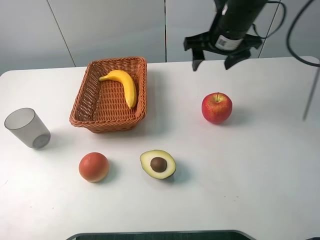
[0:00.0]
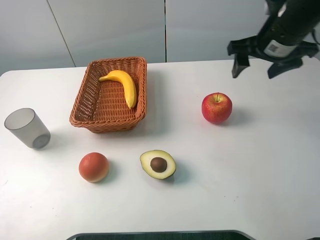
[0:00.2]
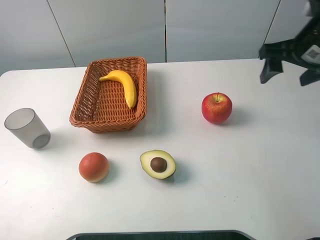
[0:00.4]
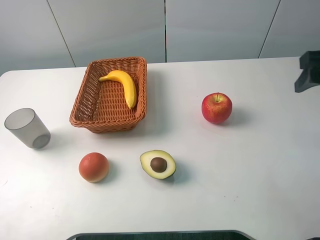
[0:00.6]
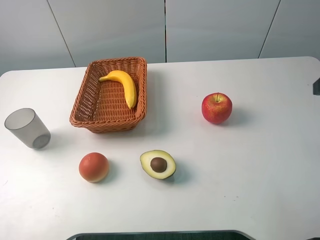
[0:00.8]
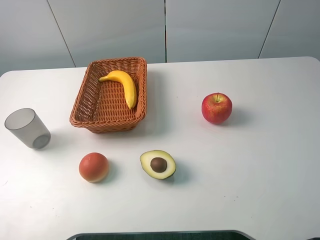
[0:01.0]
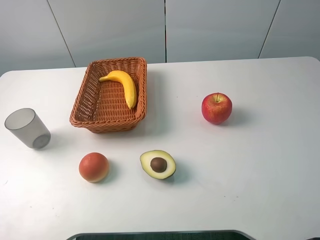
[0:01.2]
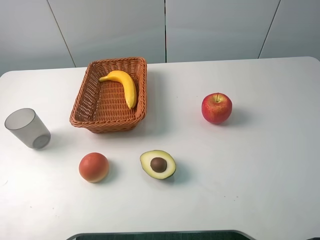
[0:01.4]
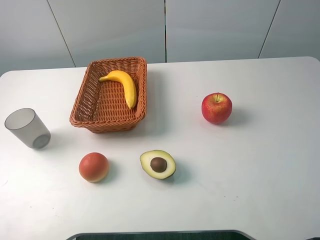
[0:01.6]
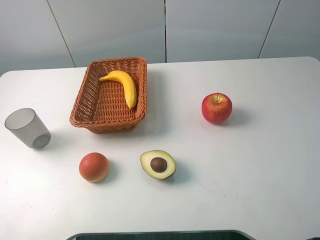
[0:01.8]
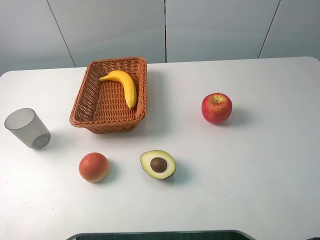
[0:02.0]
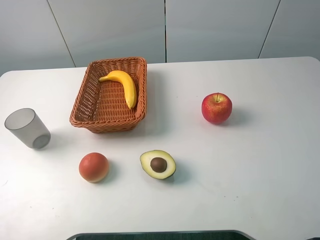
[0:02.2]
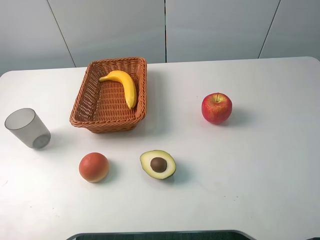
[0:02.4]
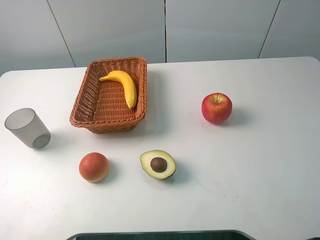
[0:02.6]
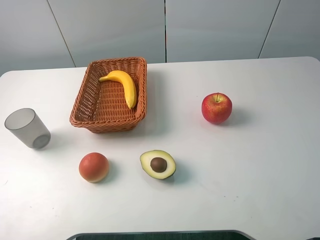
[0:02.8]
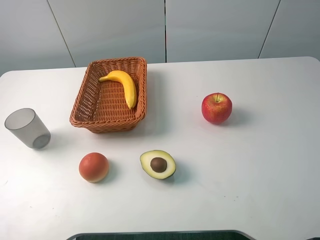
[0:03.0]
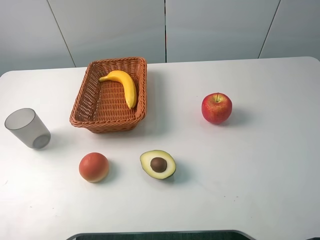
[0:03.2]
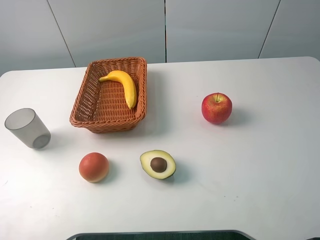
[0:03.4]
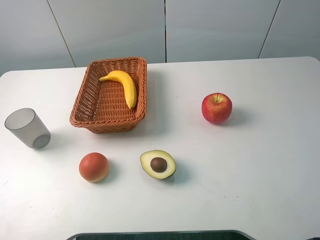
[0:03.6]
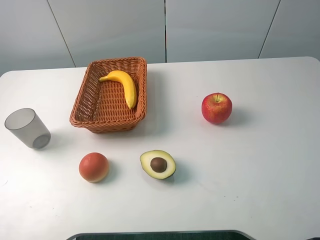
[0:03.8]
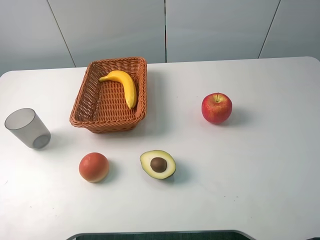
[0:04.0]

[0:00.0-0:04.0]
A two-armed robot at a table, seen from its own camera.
0:00.0 to 0:01.4: The right gripper goes some 35 cm backward.
0:02.6 to 0:04.0: Neither gripper changes place.

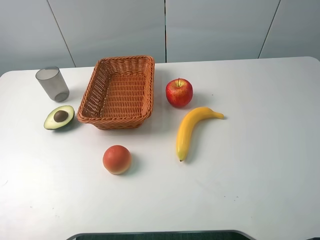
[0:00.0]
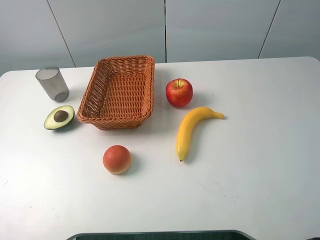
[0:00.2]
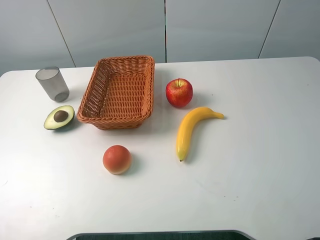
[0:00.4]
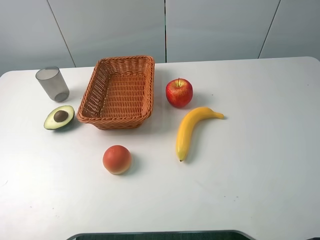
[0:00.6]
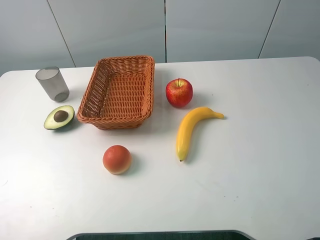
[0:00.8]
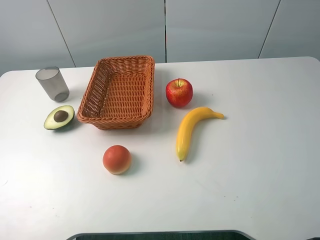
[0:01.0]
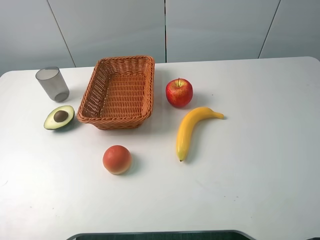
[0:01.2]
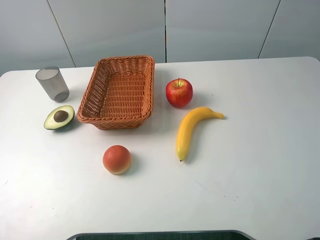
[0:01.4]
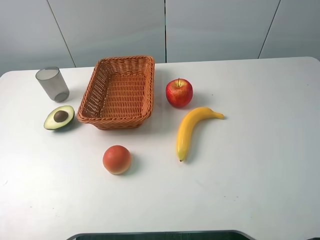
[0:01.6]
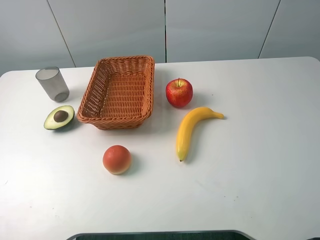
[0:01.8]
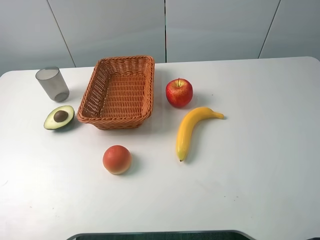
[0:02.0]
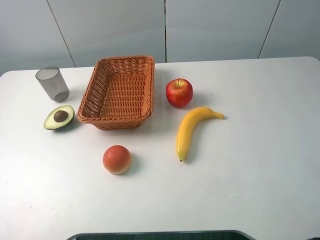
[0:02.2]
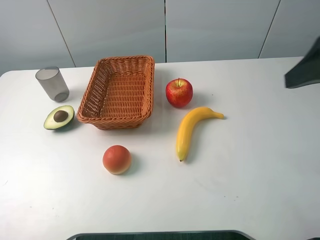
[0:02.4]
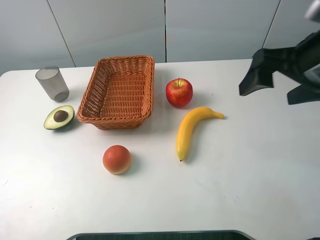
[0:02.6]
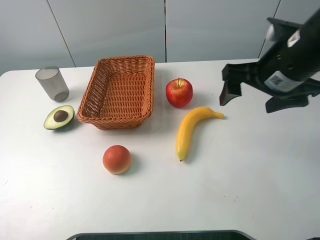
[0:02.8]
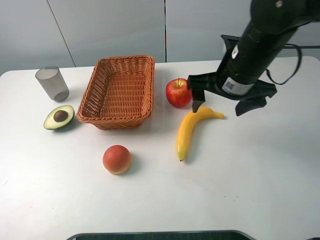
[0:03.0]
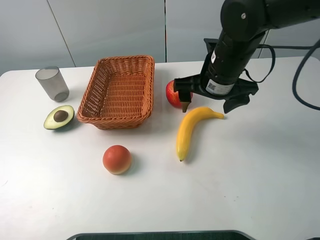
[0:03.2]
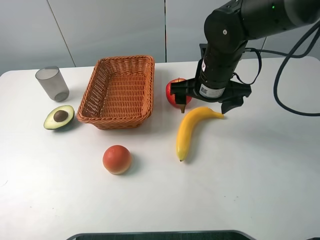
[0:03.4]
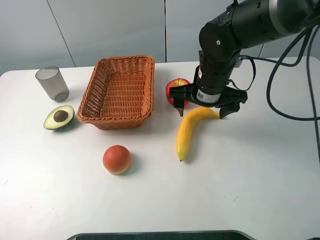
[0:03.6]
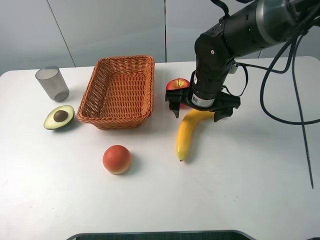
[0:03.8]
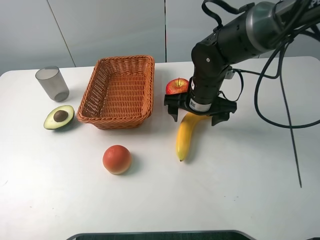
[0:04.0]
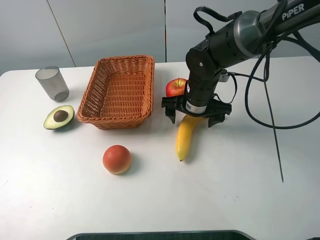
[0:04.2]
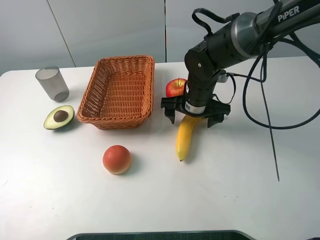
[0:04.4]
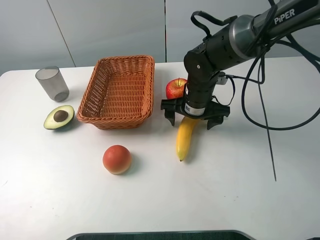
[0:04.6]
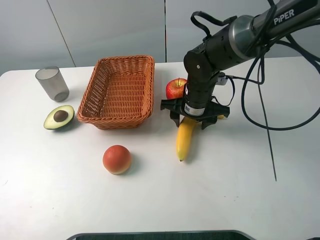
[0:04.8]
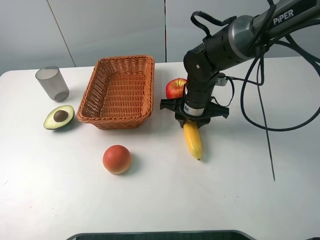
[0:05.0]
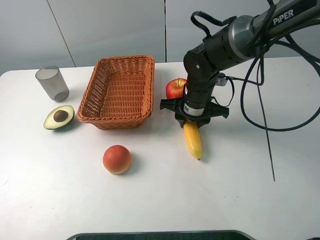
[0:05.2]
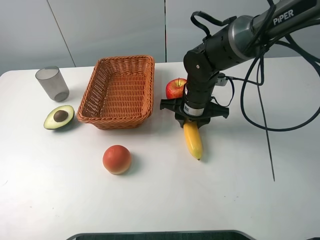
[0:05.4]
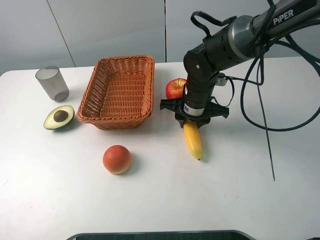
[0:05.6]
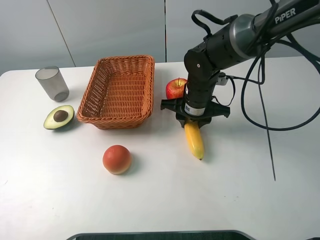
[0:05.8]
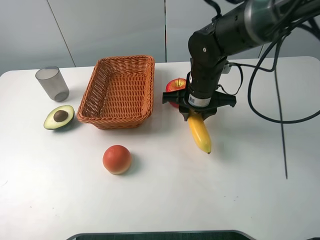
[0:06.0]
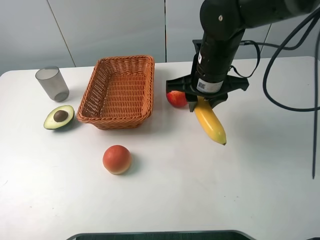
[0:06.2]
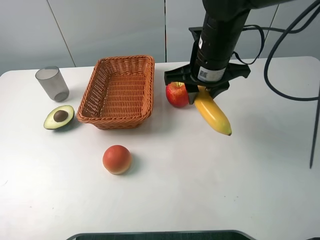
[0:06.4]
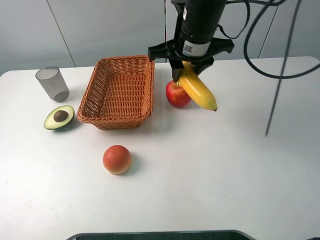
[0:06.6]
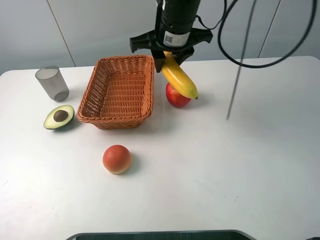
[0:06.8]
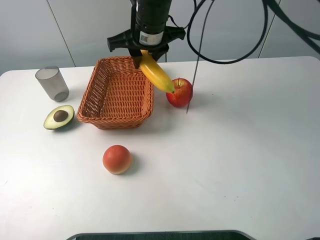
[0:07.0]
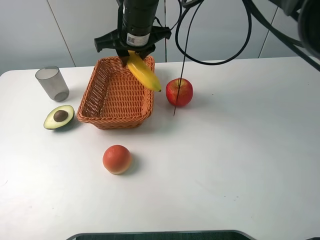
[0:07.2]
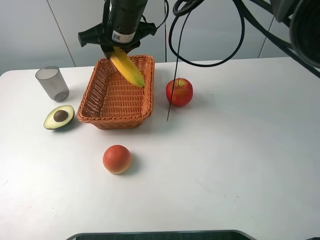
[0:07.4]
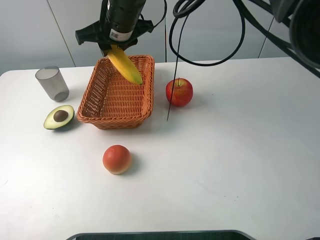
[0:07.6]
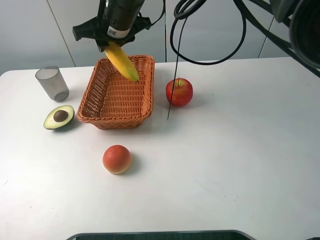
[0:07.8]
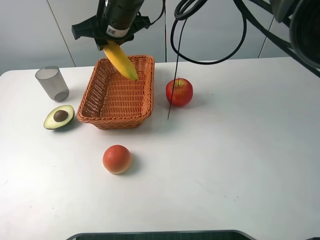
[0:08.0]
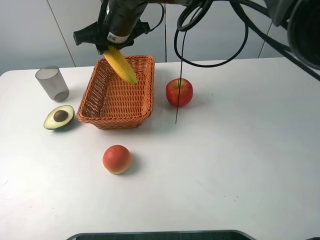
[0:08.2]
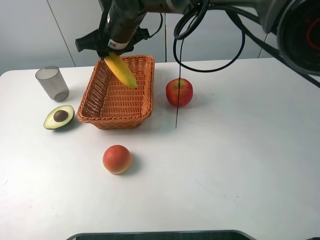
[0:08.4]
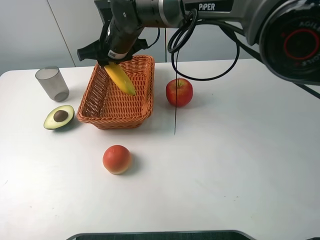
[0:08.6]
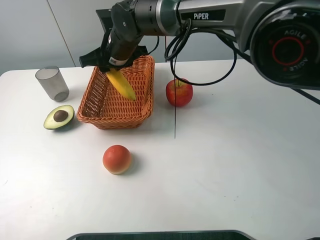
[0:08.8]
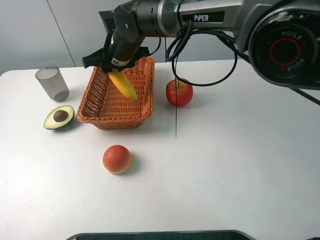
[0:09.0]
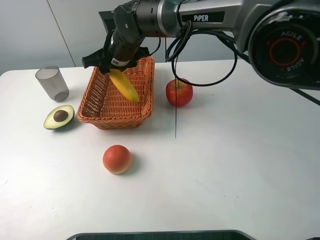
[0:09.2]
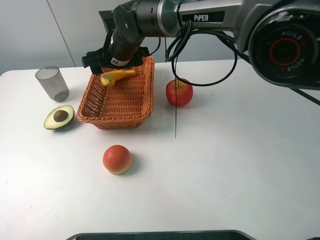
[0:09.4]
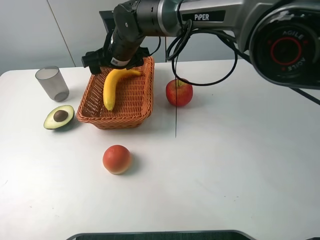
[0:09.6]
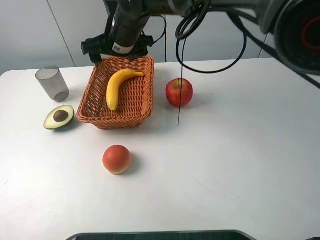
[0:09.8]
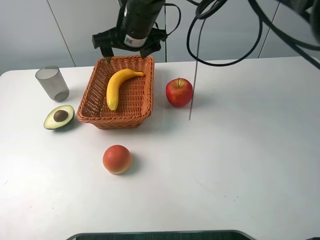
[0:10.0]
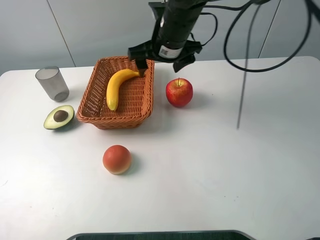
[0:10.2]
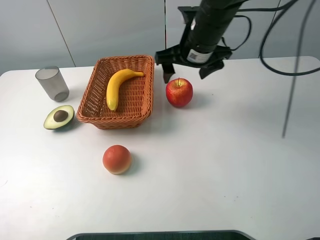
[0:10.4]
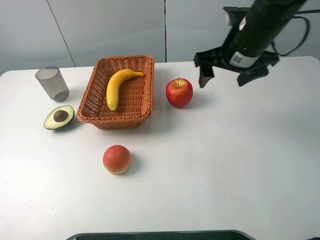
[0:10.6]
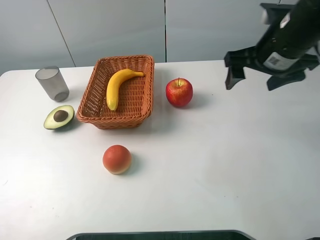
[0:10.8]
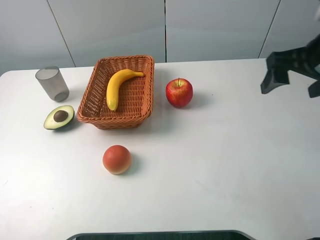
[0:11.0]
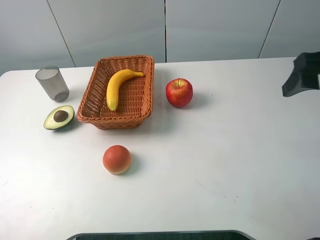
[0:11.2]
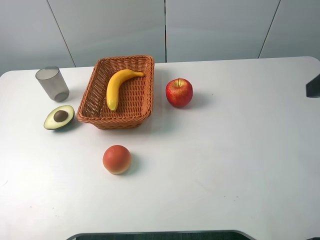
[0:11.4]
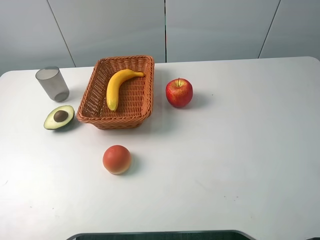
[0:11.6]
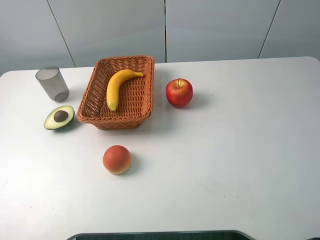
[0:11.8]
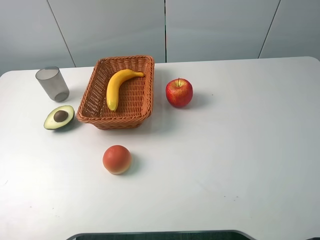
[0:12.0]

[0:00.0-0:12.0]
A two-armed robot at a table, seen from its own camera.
0:00.0 to 0:01.6: Neither gripper changes place.
0:01.6 to 0:03.0: The right gripper is displaced forward and to the left by approximately 30 cm.
0:03.0 to 0:04.4: The right gripper shifts about 10 cm downward.
0:04.4 to 0:06.0: The right gripper closes up.
0:06.0 to 0:07.6: The right gripper travels to the left, upward and forward by roughly 20 cm.
0:07.6 to 0:09.0: The right gripper heads downward, covering roughly 5 cm.
0:09.0 to 0:10.4: The right gripper heads to the right, covering approximately 15 cm, and opens.
0:10.4 to 0:12.0: The right gripper goes roughly 35 cm backward and to the right.

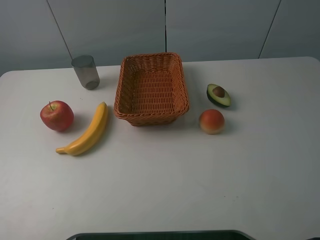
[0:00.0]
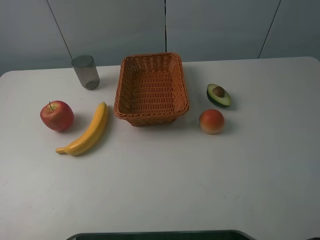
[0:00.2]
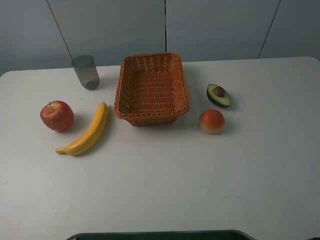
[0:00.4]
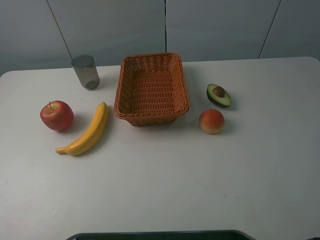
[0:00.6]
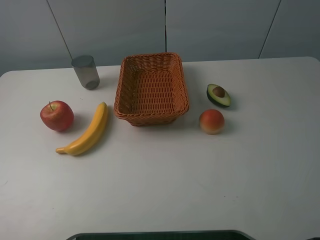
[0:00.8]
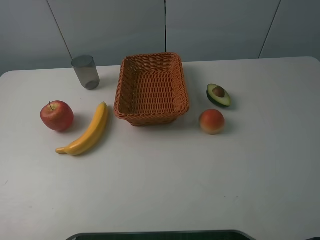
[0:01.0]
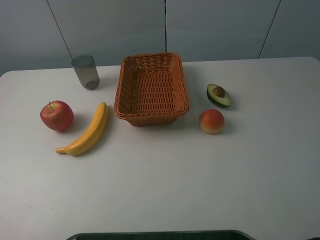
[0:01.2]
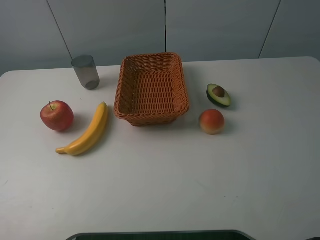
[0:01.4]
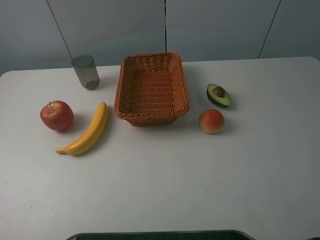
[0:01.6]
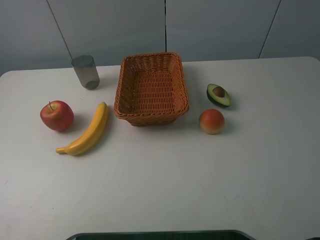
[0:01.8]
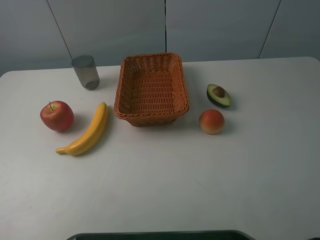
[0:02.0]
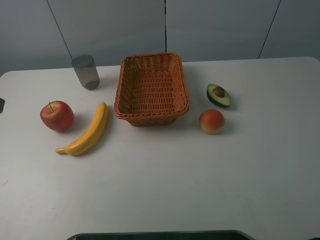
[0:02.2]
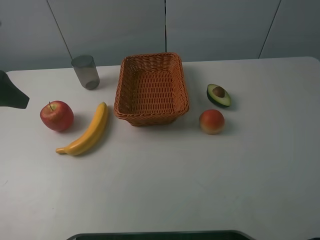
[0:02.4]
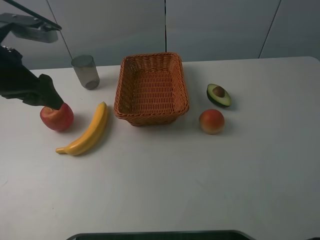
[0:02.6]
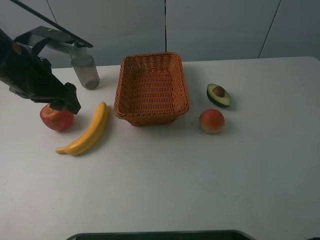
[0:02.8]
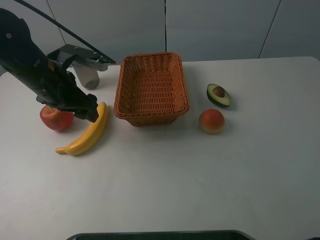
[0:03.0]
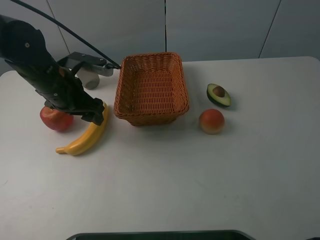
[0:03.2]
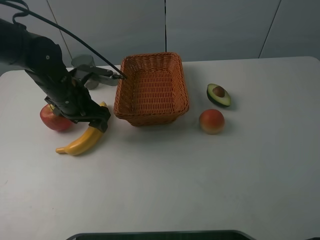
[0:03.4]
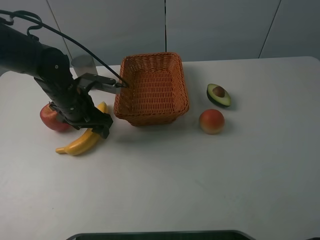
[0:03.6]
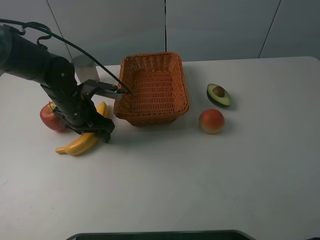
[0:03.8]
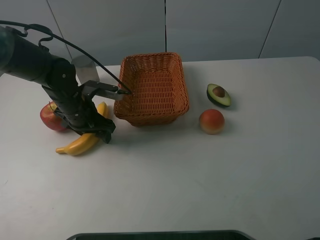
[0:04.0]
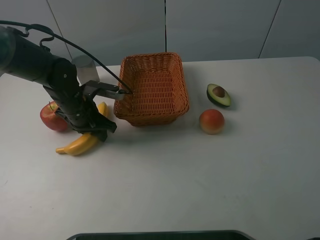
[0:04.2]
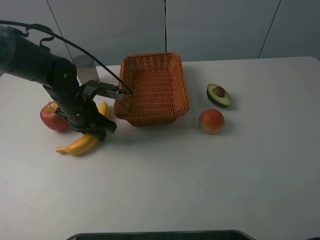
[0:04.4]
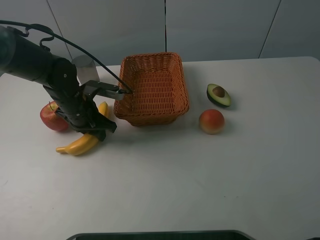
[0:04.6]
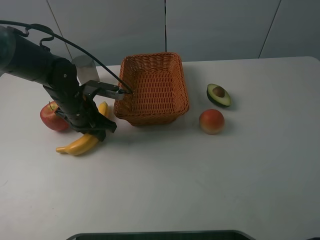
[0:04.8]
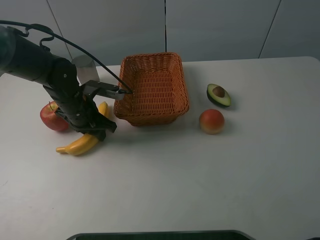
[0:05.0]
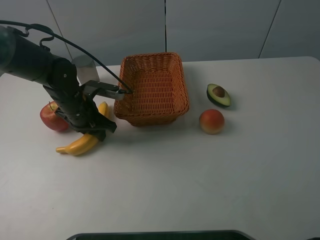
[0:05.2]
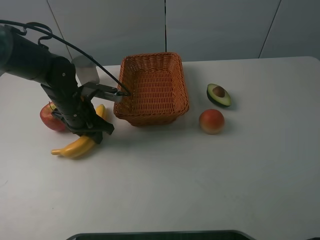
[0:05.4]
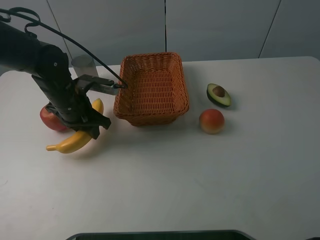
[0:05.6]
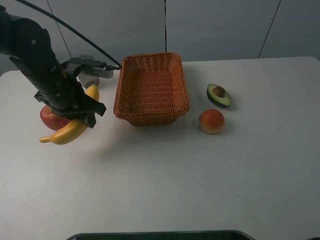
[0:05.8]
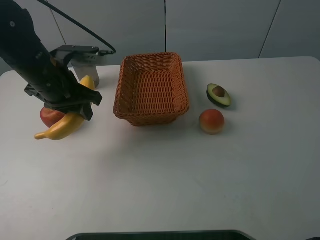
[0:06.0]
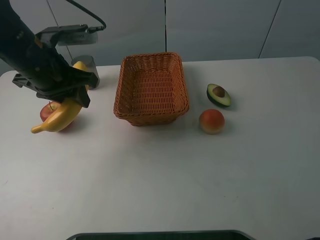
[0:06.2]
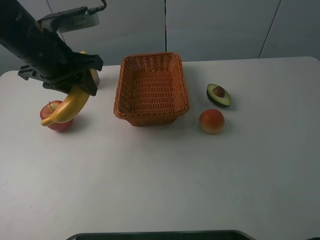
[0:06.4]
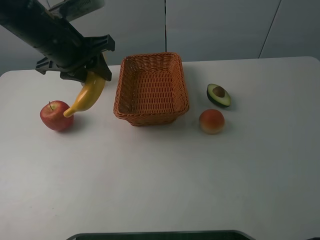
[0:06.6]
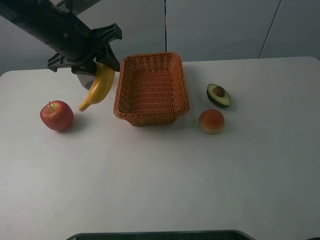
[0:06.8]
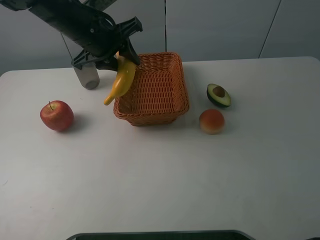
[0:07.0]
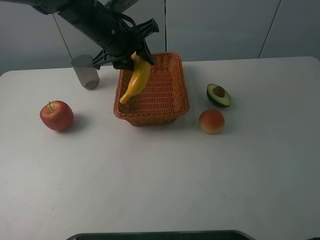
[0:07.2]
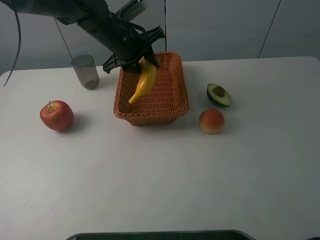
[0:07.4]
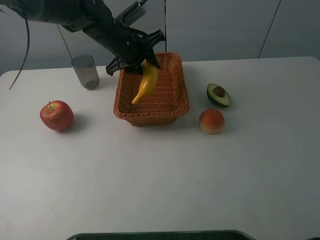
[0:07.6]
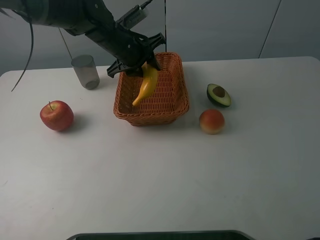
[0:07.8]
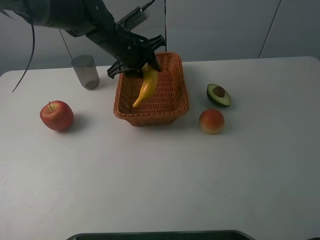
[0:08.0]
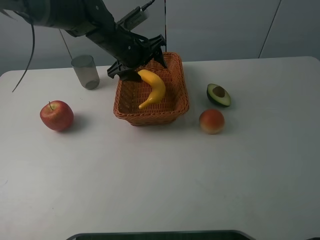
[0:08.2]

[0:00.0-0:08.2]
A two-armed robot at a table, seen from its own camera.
0:01.6 to 0:03.2: The left gripper travels forward and to the right by approximately 30 cm.
0:03.2 to 0:05.0: The left gripper heads downward, covering about 10 cm, and closes.
0:05.0 to 0:06.6: The left gripper shifts about 15 cm upward.
0:06.6 to 0:08.2: The left gripper moves forward, to the right and downward, roughly 15 cm, and opens its fingers.
